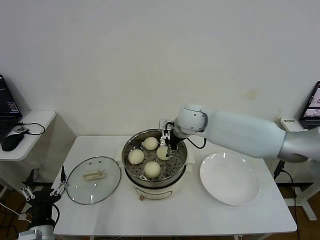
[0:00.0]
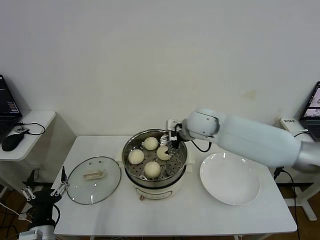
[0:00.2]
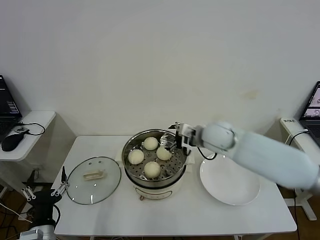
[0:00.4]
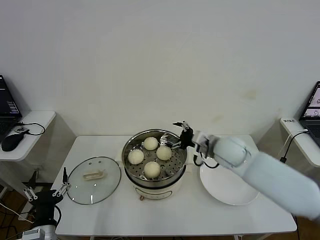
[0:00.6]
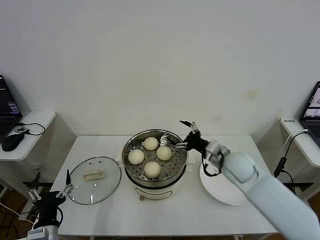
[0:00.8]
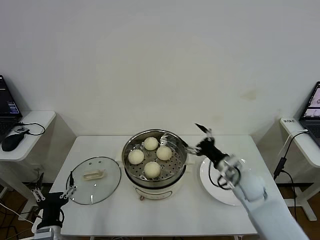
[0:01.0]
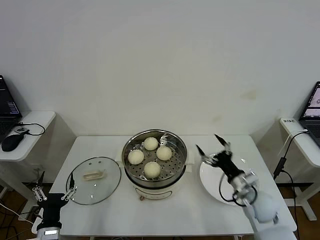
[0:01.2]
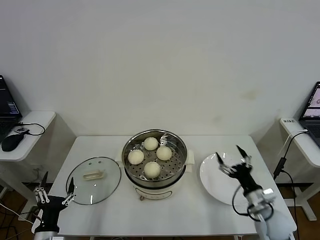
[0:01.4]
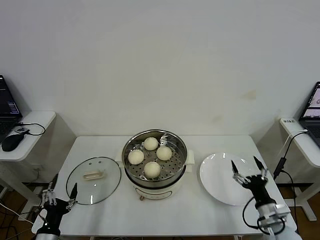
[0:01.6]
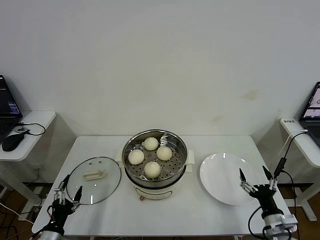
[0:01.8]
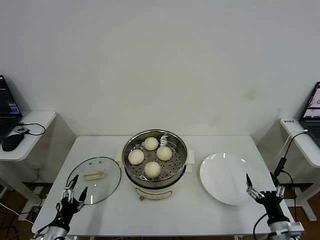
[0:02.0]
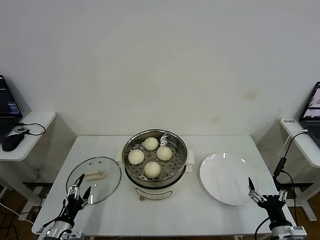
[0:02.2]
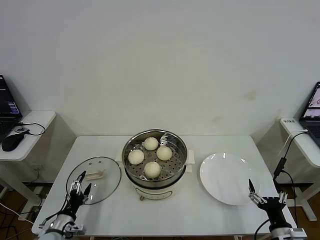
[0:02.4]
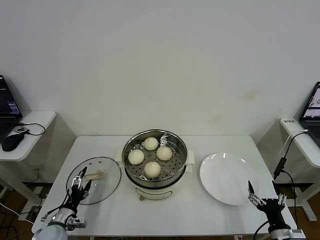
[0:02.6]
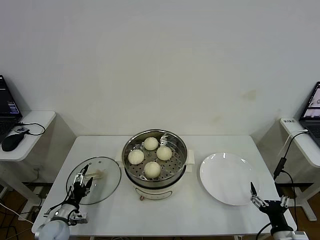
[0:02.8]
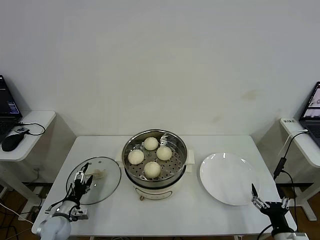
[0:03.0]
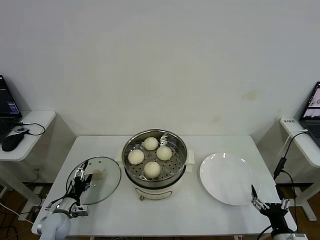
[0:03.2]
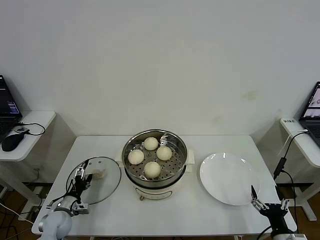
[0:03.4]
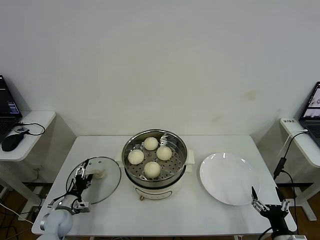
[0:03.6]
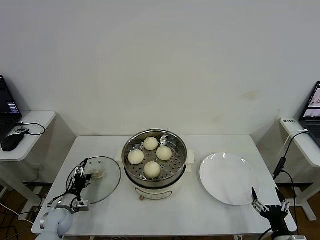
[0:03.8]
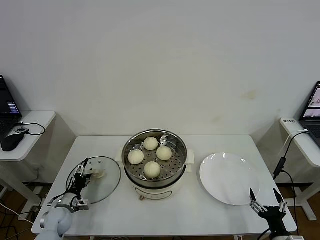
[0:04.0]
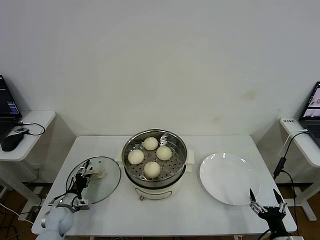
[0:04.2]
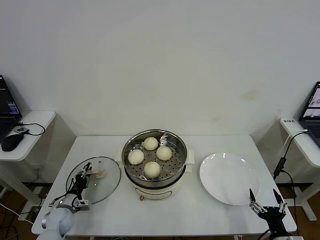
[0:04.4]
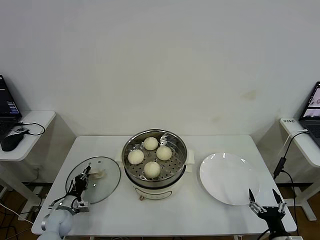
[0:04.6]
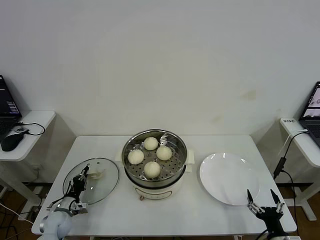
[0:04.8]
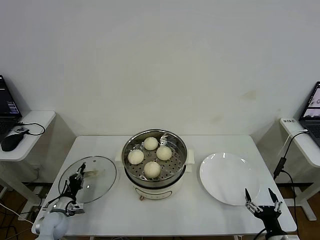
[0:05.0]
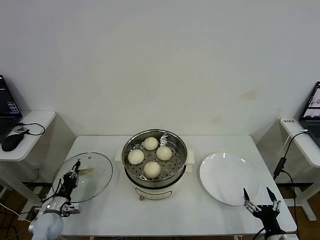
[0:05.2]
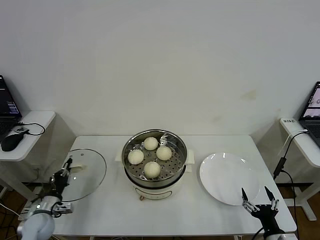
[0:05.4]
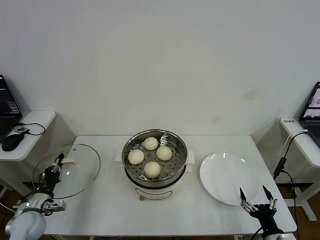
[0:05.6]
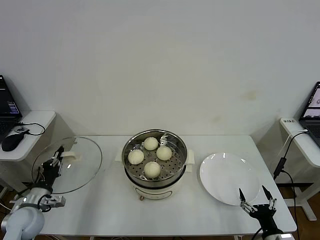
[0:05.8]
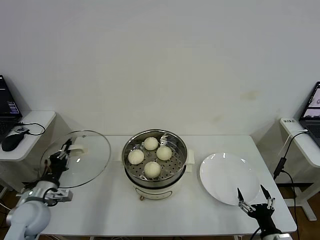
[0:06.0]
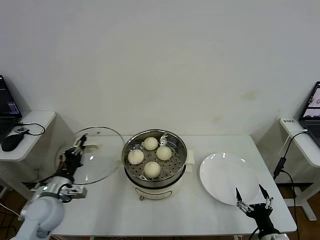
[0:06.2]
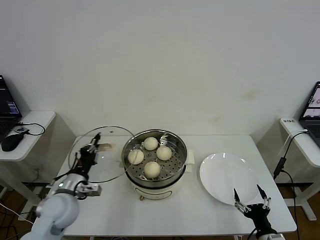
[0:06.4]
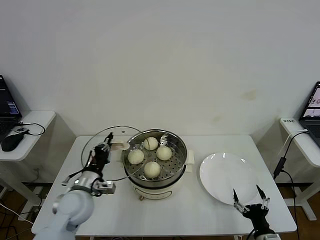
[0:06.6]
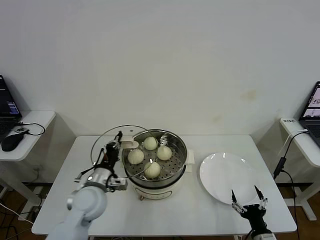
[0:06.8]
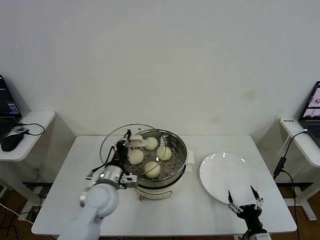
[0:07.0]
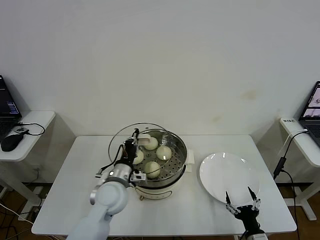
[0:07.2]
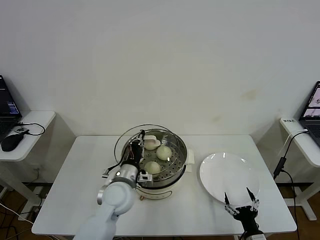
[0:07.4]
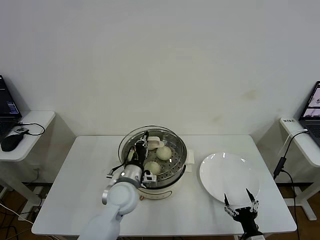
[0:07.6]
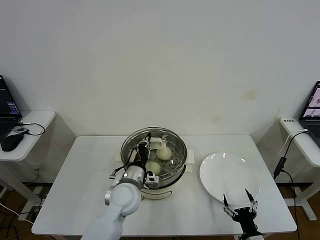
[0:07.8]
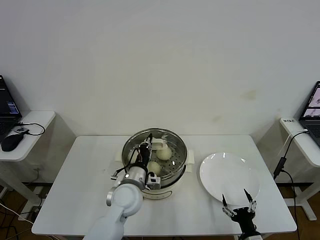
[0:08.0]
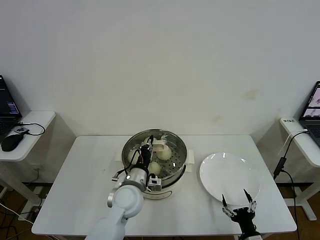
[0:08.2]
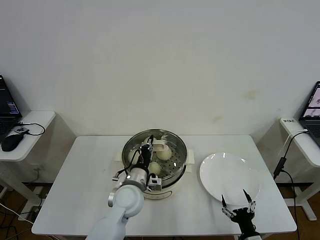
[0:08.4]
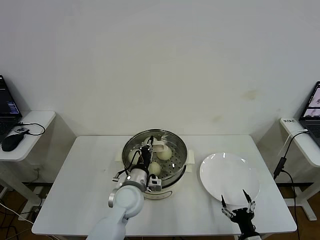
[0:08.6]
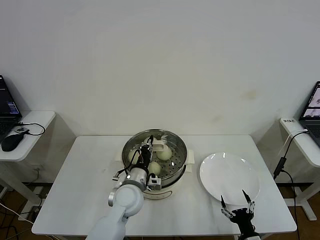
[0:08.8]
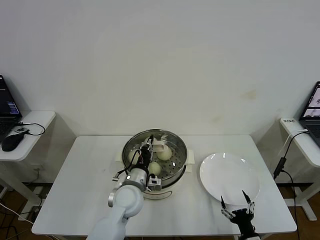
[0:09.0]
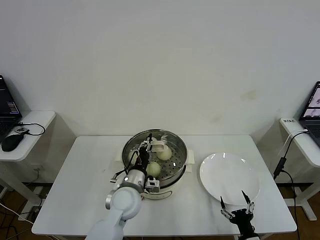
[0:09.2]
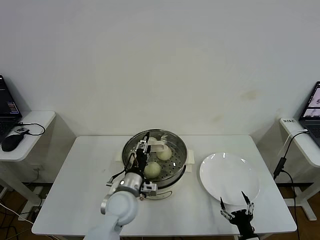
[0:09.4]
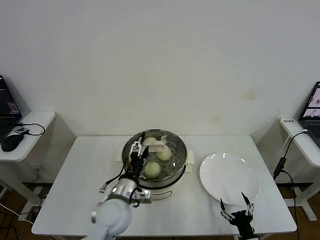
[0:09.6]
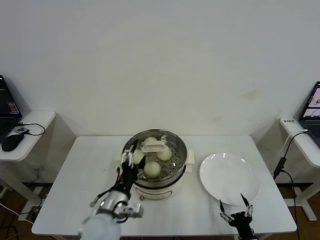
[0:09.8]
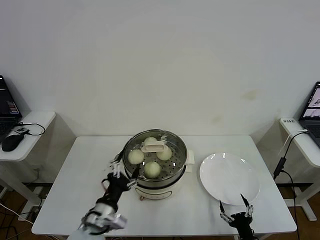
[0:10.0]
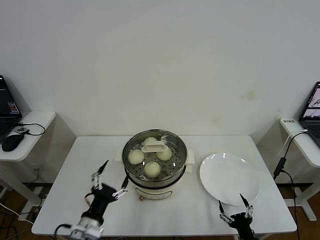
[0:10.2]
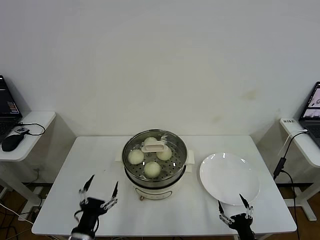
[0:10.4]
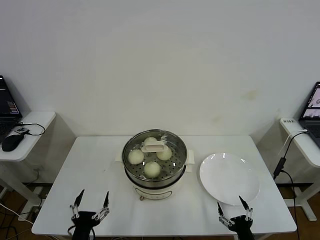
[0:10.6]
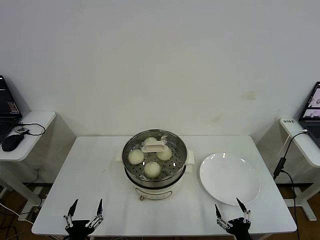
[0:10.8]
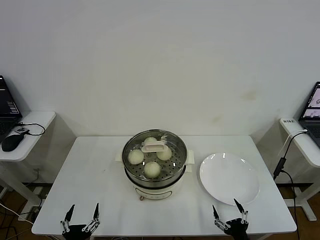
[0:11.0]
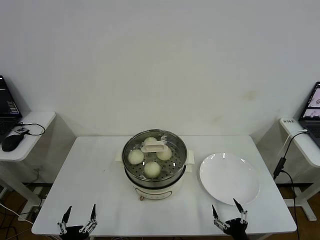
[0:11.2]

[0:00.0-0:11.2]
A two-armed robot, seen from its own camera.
Step, 0:00.0 to 0:04.8: Grasp the pot lid with left gripper.
Step, 0:05.0 to 0:09.4: Place the pot lid on the steamer with left gripper.
0:00.0 to 0:01.6: The left gripper is displaced downward by approximately 5 cm, while the right gripper is displaced backward, to the right and downward by roughly 50 cm.
0:01.6 to 0:03.2: The left gripper heads forward and downward, covering about 15 cm, while the right gripper shifts roughly 10 cm backward.
0:03.2 to 0:04.8: The left gripper closes its fingers.
0:04.8 to 0:06.4: The left gripper shifts some 25 cm upward and to the right.
0:06.4 to 0:08.0: The left gripper is displaced to the right by roughly 20 cm.
0:08.0 to 0:09.6: The left gripper moves approximately 5 cm, and opens.
0:09.6 to 0:11.2: The left gripper travels backward, to the left and downward by approximately 30 cm.

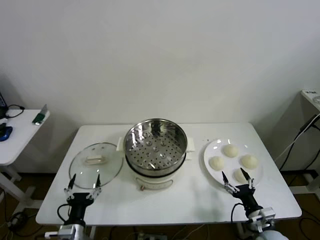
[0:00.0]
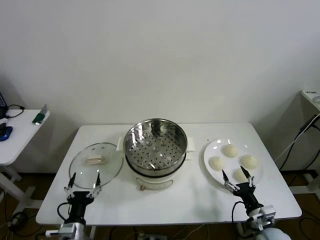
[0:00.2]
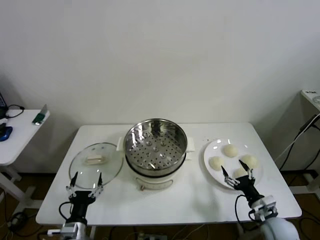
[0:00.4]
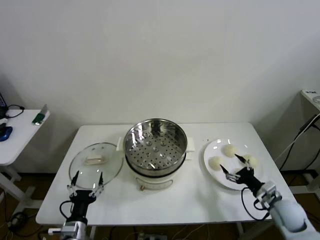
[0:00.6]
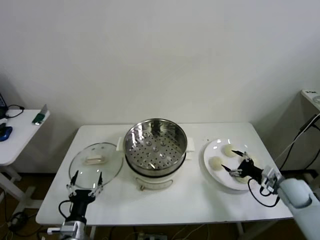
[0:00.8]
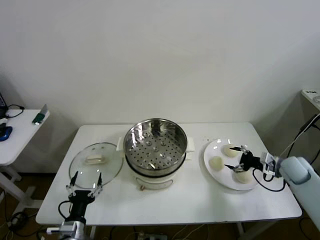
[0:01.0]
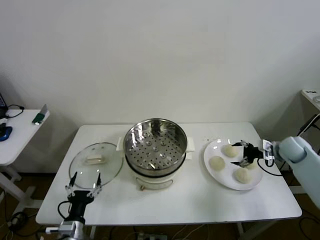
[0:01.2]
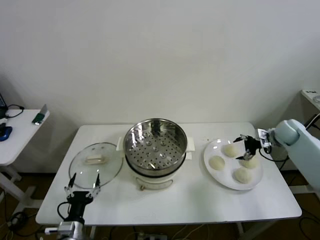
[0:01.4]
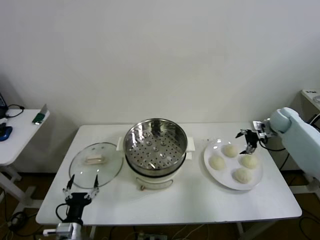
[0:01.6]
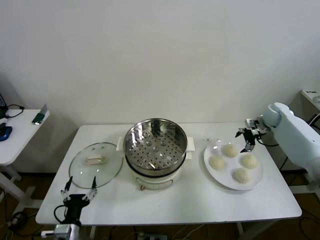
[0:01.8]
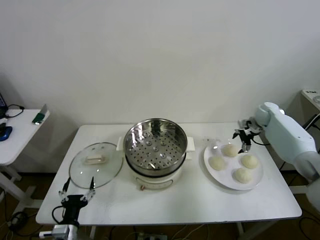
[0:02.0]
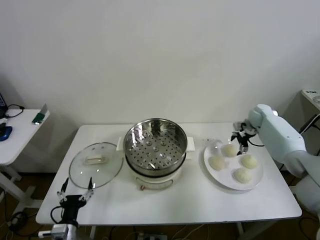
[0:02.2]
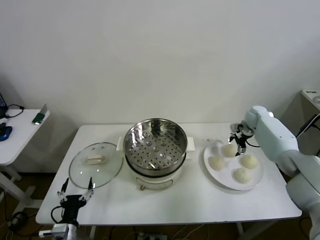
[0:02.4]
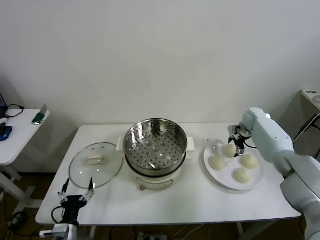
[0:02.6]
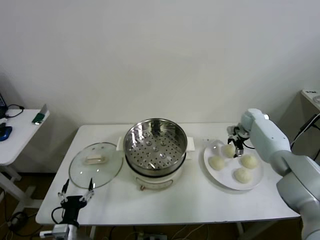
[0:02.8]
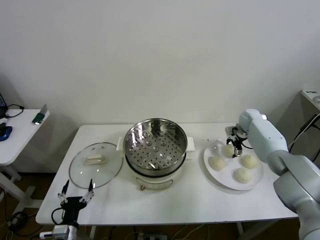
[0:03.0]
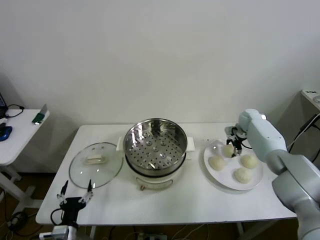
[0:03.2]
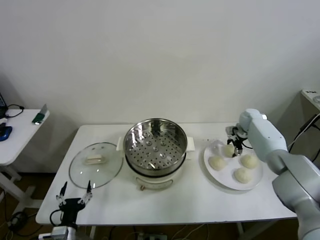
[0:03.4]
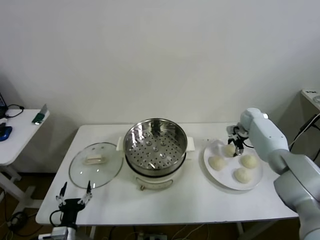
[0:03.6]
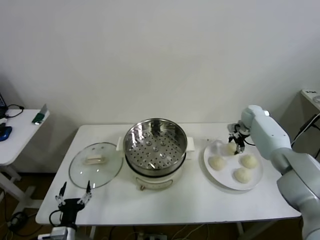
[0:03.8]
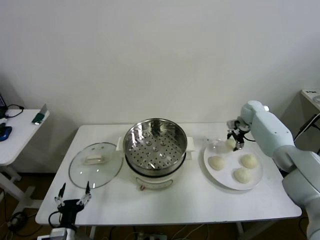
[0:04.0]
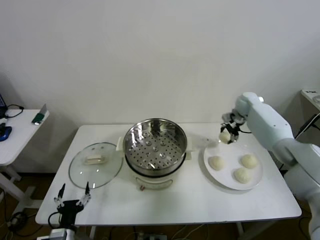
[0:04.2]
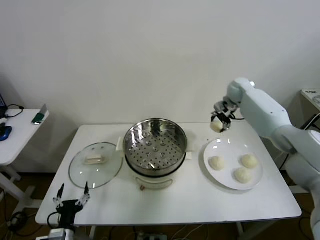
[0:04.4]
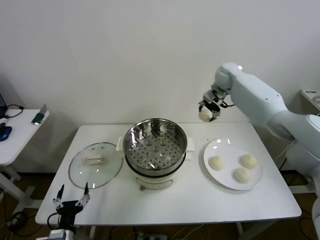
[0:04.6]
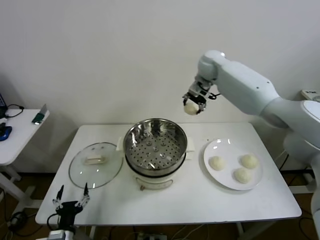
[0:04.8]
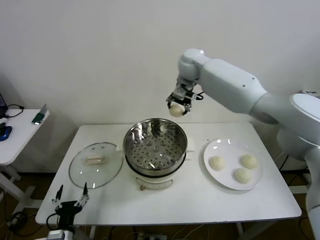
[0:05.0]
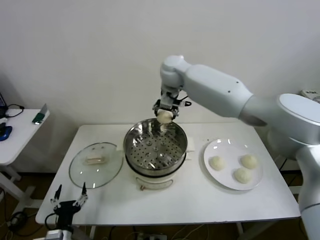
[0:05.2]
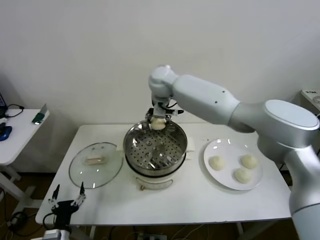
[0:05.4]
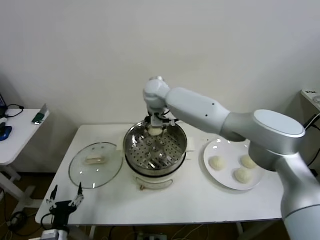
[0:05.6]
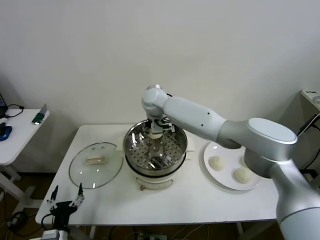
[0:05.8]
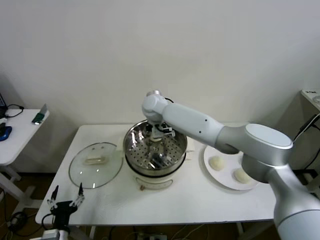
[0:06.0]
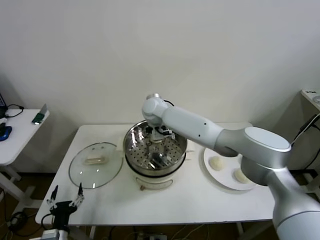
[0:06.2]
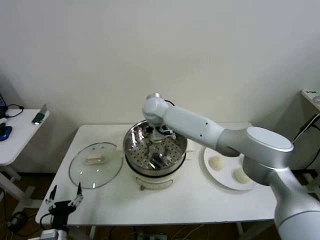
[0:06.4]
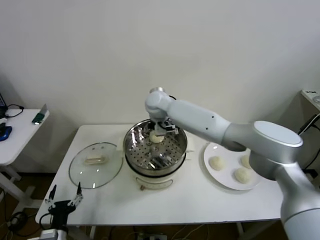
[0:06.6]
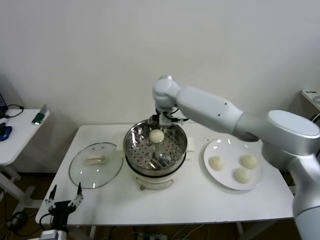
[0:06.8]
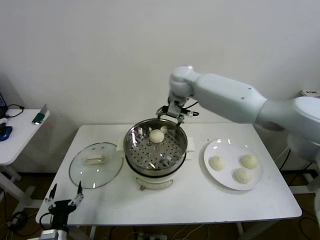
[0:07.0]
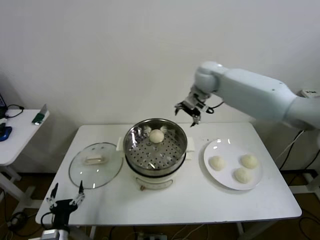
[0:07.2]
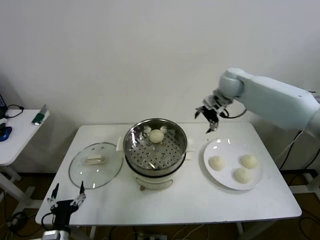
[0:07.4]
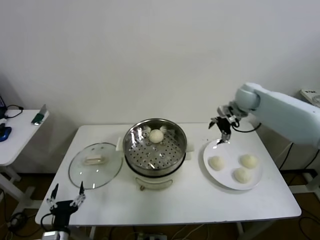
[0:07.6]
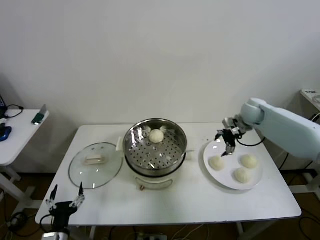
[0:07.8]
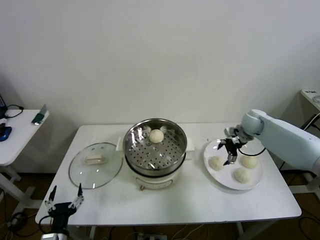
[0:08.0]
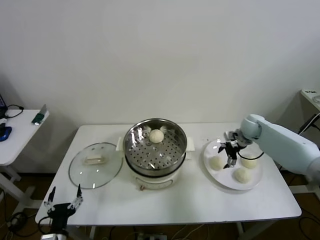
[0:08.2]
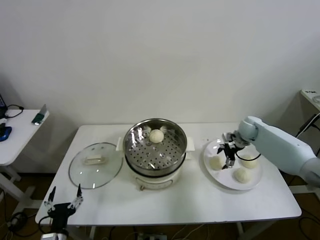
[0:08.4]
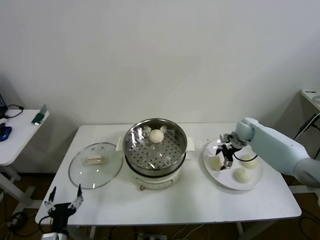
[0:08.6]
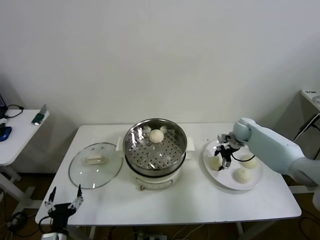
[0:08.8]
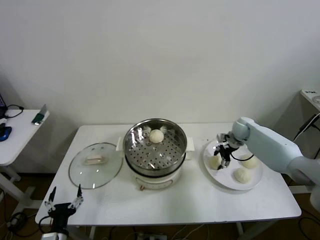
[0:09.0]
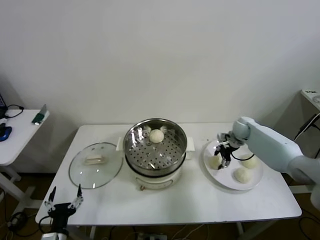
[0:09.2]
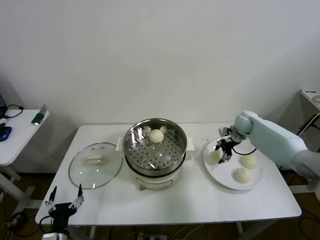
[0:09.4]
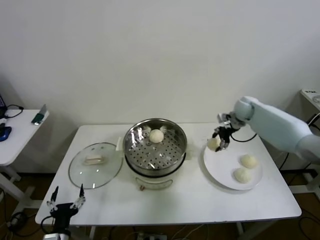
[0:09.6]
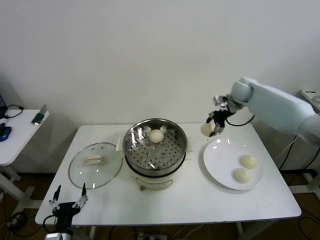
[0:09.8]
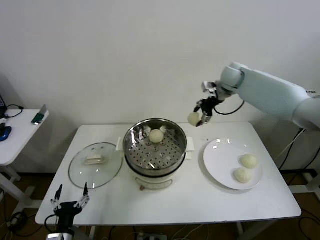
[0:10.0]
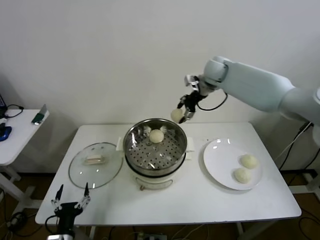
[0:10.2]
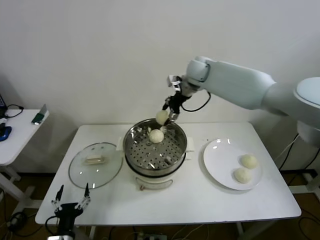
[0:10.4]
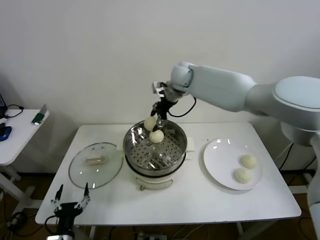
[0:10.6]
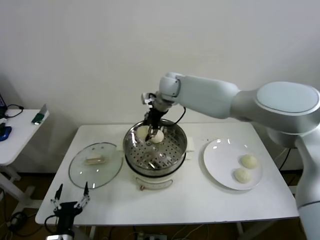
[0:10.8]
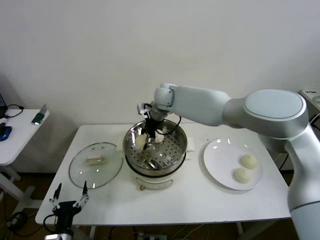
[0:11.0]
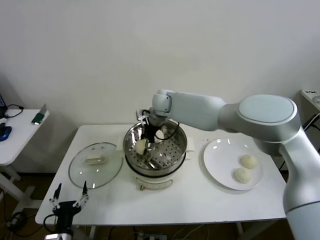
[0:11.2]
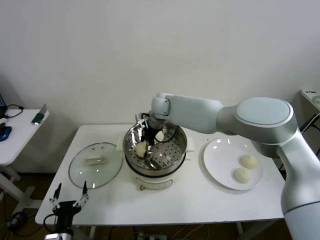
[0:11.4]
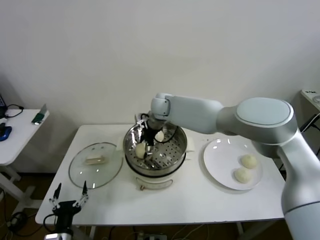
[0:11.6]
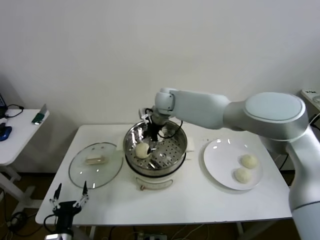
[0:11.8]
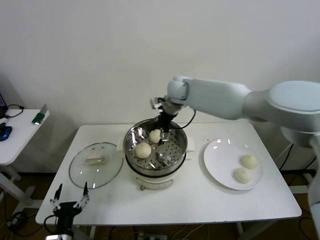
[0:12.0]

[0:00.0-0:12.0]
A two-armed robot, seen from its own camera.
Step, 0:00.0 to 0:03.4: Grasp the baozi in the plate with right gripper.
Step, 0:03.6 to 0:06.8: Place the baozi on the steamer with right gripper.
Step, 0:07.0 to 0:09.0: Grasp the baozi in the plate with right gripper.
Step, 0:09.2 to 0:11.8: Place the baozi on the steamer with right gripper.
0:01.6 to 0:03.0: The right gripper moves to the left and downward, approximately 10 cm, and closes up.
0:03.0 to 0:04.4: The right gripper travels upward and to the left by approximately 20 cm.
0:04.4 to 0:06.0: The right gripper is displaced to the left by approximately 30 cm.
0:06.0 to 0:07.6: The right gripper moves to the right, roughly 35 cm, and opens its fingers.
0:07.6 to 0:09.0: The right gripper is displaced downward by some 15 cm, and closes its fingers.
0:09.0 to 0:10.4: The right gripper is displaced upward and to the left by about 35 cm.
0:10.4 to 0:12.0: The right gripper opens.
